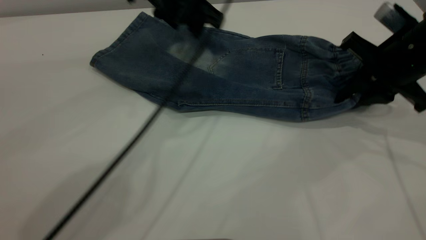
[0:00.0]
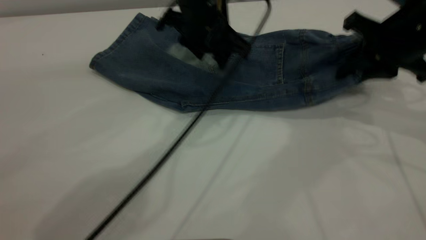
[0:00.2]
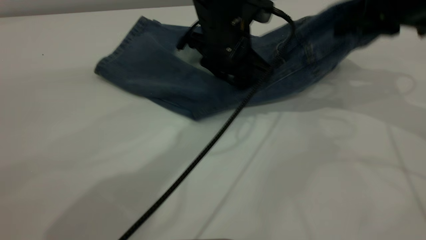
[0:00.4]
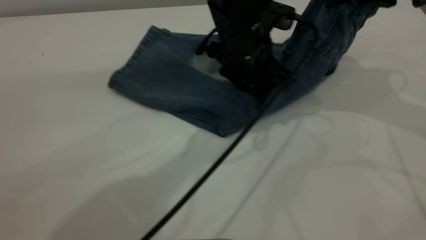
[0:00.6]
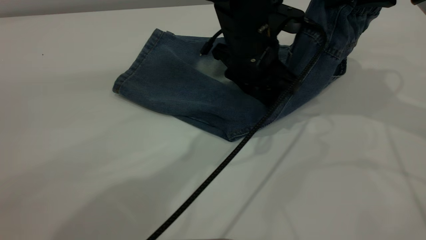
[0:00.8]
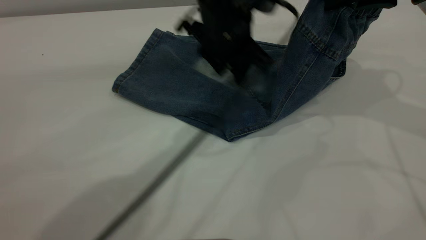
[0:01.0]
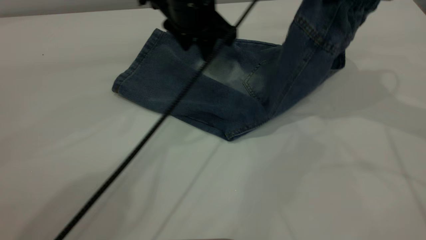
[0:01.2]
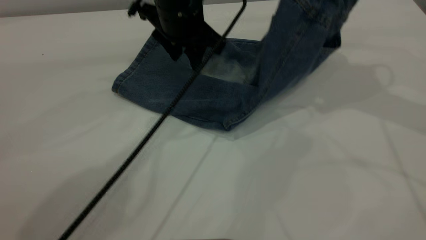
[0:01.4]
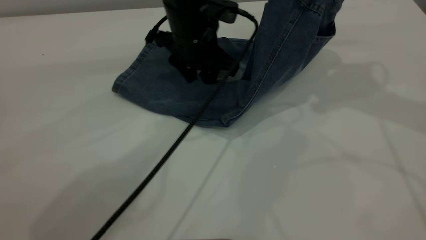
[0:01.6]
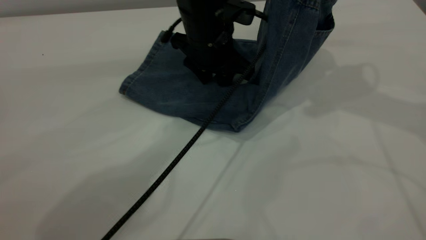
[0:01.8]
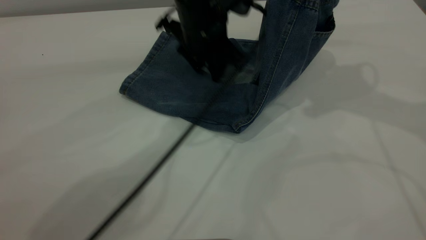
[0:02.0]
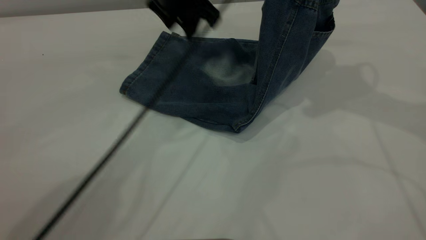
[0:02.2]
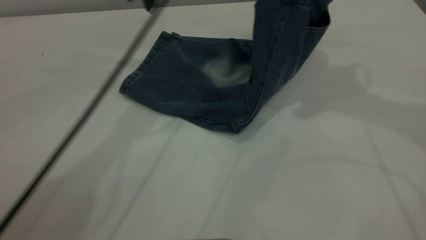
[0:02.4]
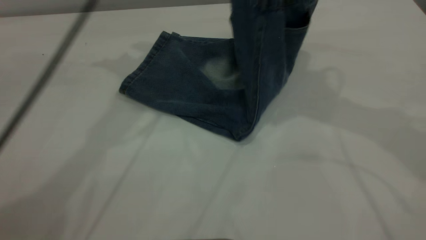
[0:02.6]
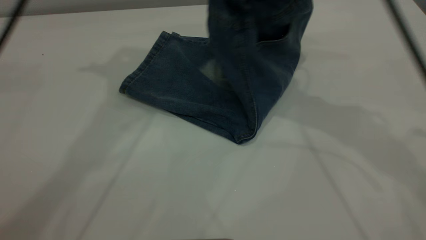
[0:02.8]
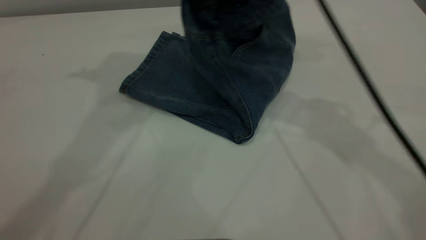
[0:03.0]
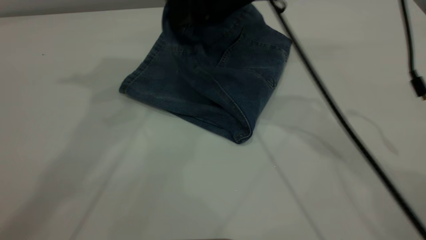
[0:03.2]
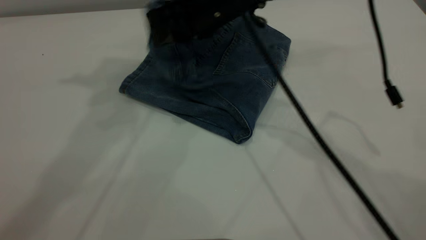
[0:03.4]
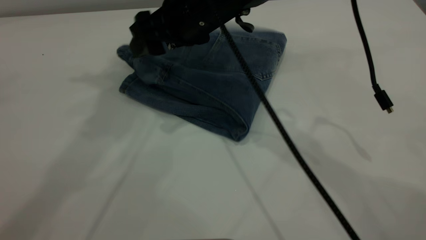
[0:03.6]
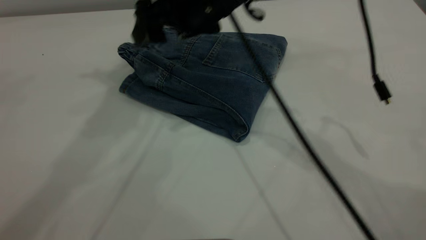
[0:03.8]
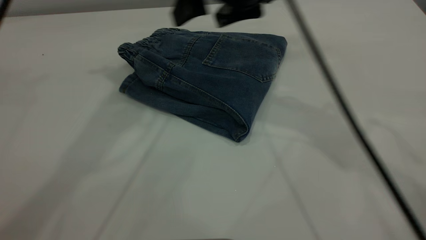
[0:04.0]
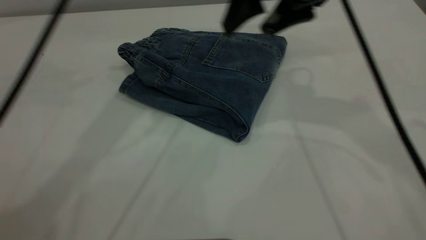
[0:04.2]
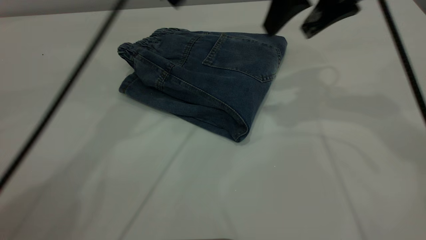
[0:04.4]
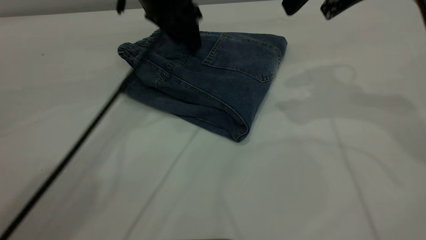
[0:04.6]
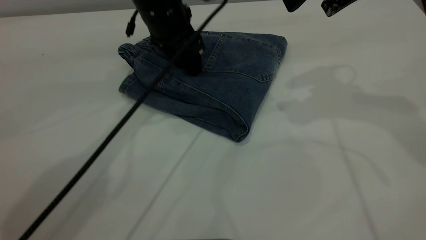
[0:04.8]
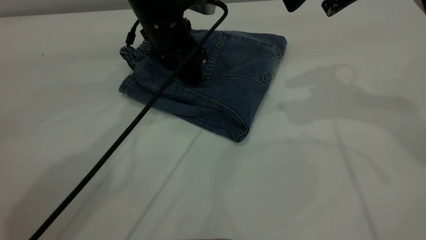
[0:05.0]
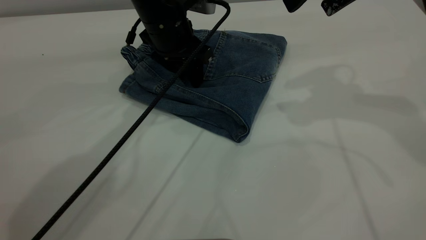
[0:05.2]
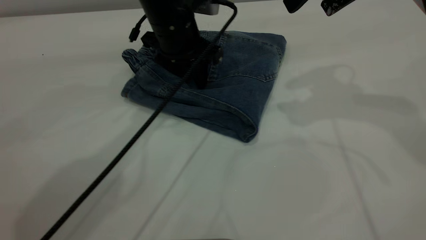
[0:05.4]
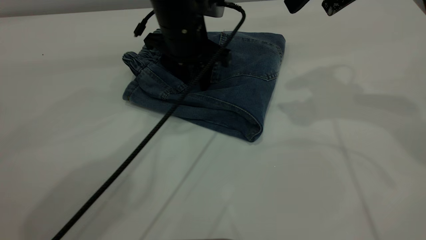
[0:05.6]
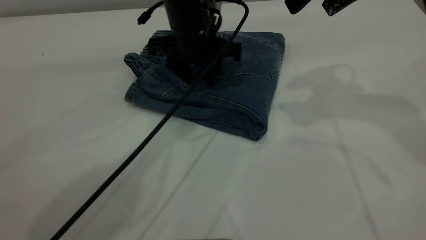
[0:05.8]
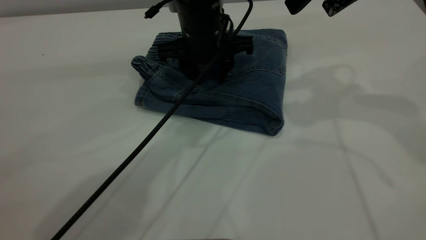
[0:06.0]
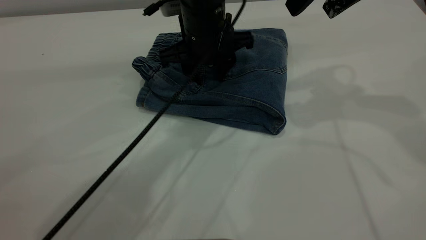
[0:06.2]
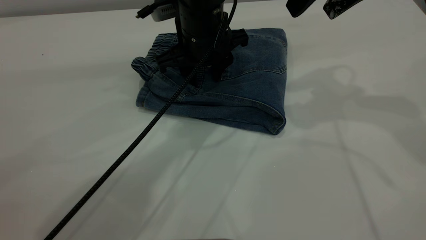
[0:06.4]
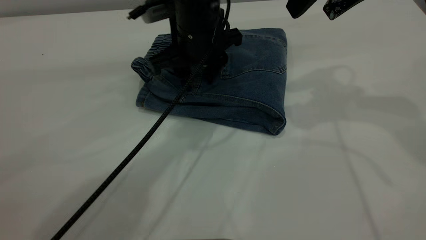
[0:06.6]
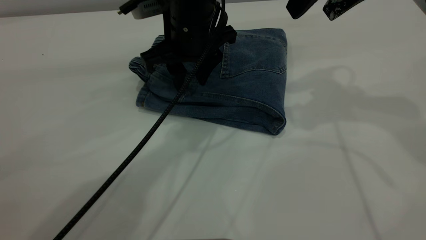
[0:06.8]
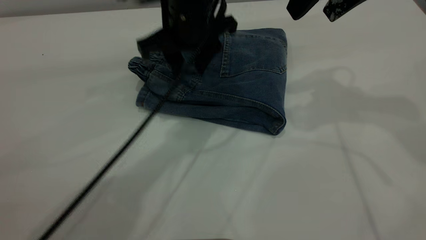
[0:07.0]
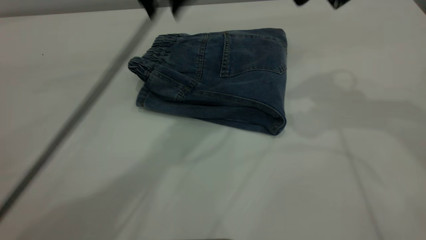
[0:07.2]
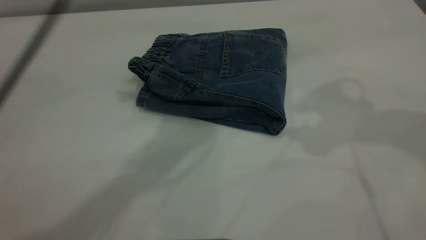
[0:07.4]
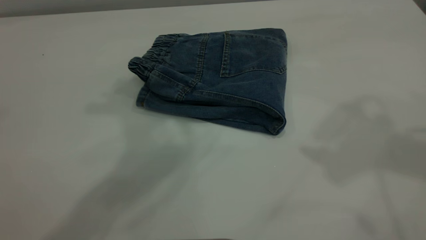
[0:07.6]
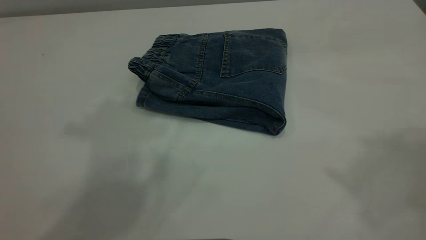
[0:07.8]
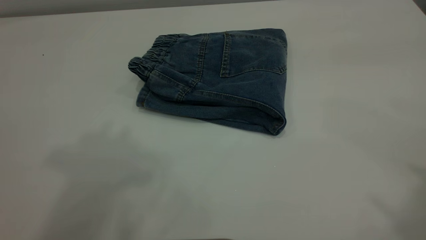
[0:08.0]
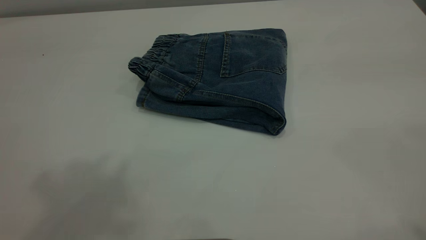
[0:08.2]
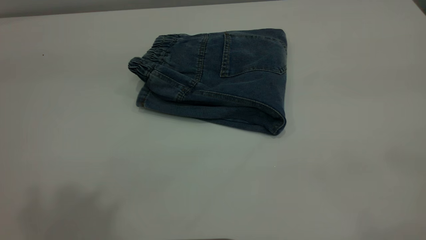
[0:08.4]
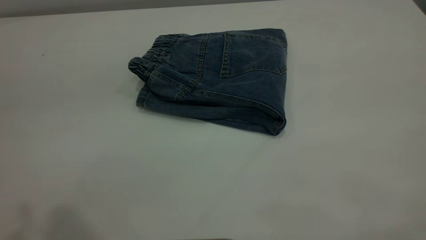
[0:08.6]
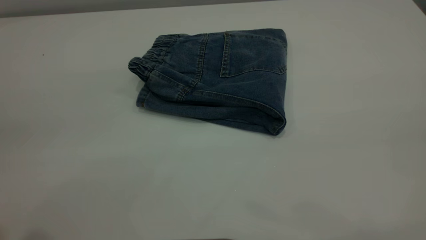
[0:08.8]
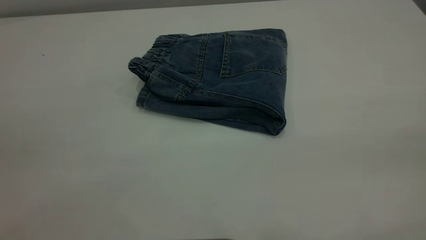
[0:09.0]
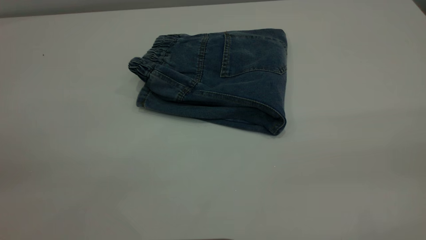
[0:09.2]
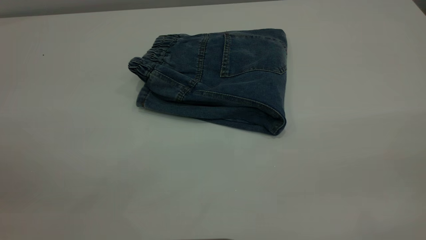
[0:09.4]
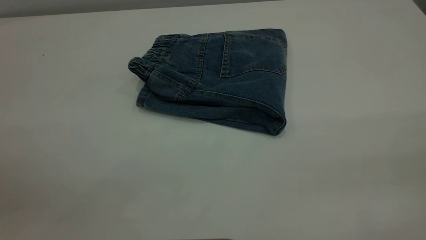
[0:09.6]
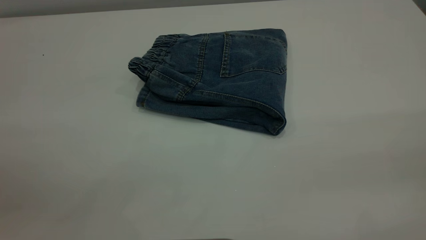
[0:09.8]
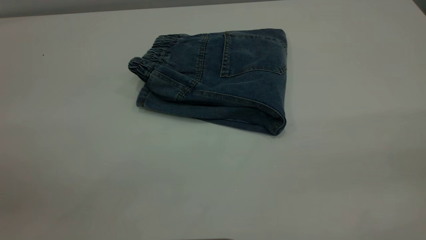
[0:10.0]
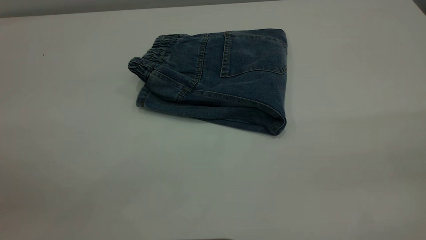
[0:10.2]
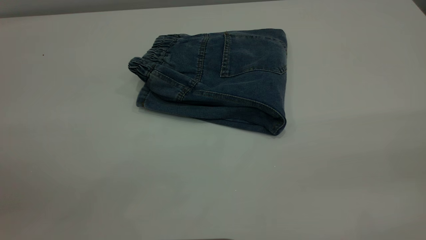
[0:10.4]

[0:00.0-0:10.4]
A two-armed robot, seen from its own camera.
Step, 0:00.0 to 0:04.2: Fold your pants from right to left.
0:00.0 to 0:01.4: The right gripper goes roughly 15 cm upward; the left gripper goes to the right and returns, roughly 10 cm each way.
0:01.4 to 0:03.0: The right gripper is displaced to the left by some 15 cm, while the left gripper heads upward and to the left, covering about 30 cm.
0:03.0 to 0:04.4: The left gripper goes about 20 cm downward; the right gripper goes about 10 cm to the right, and opens its fingers.
0:04.4 to 0:06.0: The left gripper is displaced downward and to the right by some 15 cm.
0:06.0 to 0:07.4: The left gripper shifts about 25 cm upward, while the right gripper moves upward and backward, approximately 10 cm.
0:07.4 to 0:09.0: The left gripper is displaced backward and to the left by about 35 cm.
